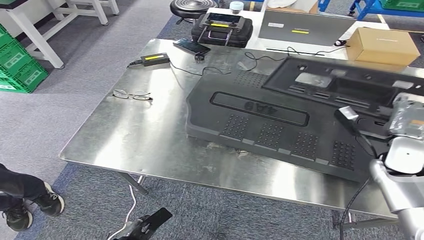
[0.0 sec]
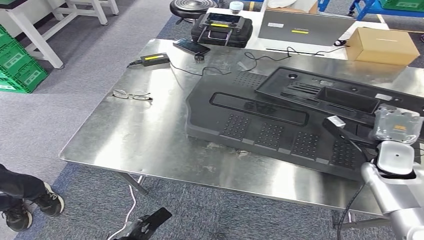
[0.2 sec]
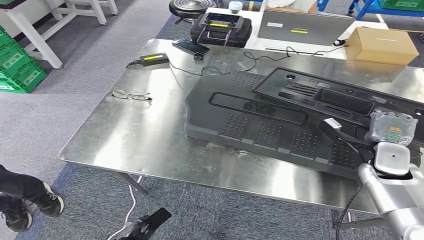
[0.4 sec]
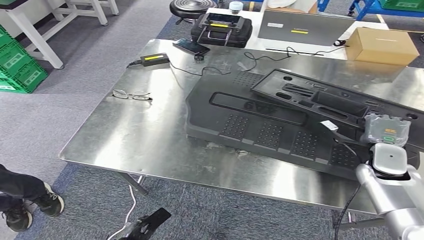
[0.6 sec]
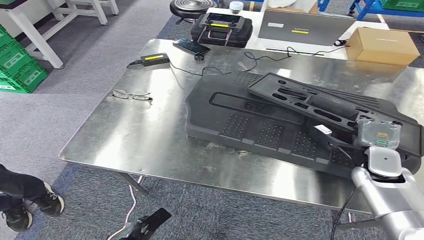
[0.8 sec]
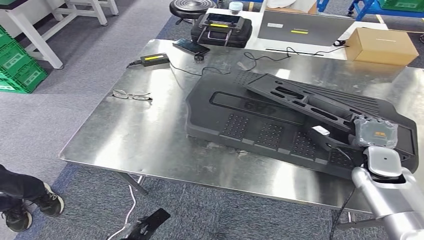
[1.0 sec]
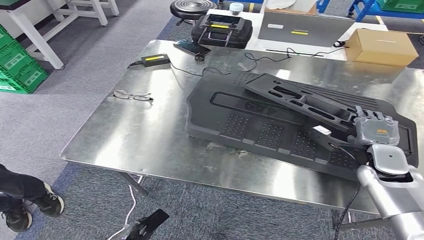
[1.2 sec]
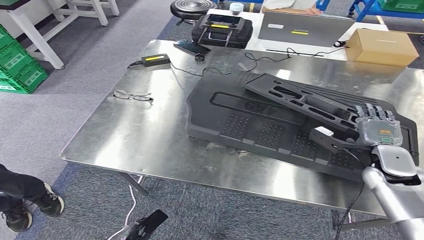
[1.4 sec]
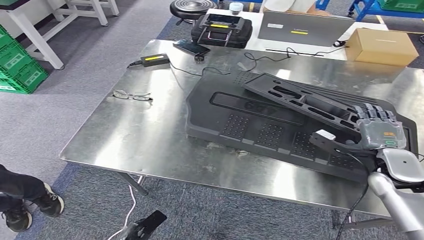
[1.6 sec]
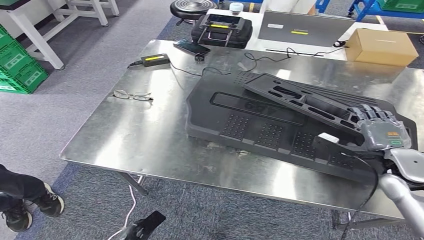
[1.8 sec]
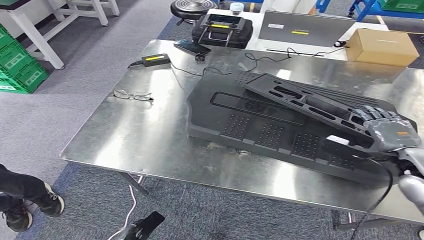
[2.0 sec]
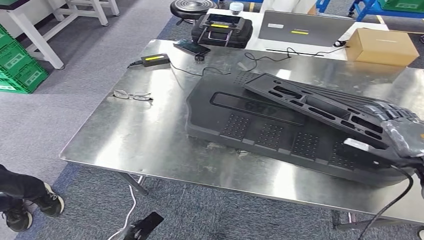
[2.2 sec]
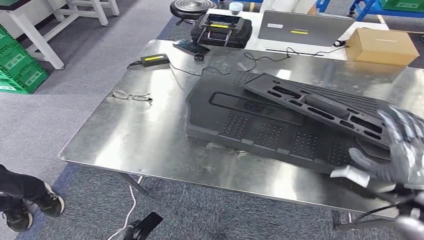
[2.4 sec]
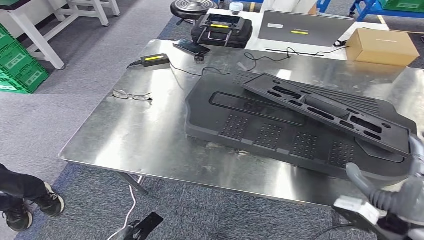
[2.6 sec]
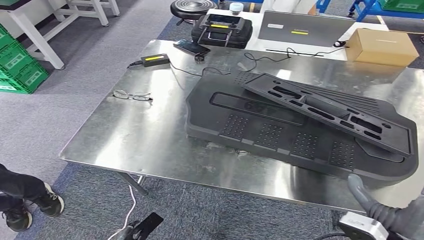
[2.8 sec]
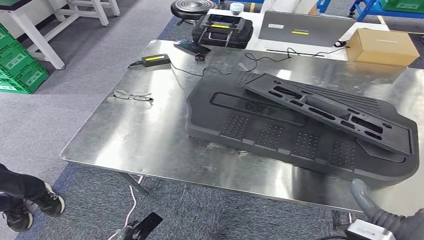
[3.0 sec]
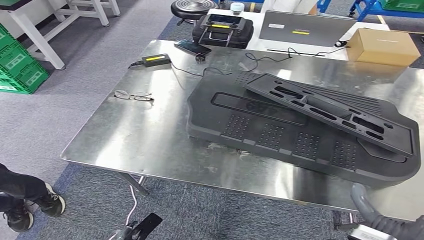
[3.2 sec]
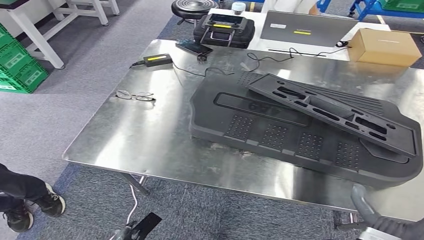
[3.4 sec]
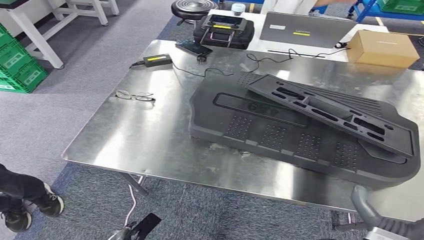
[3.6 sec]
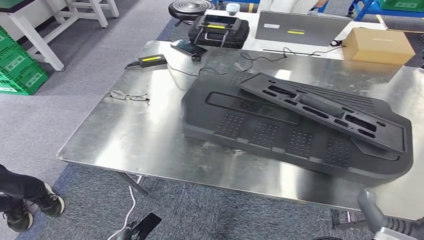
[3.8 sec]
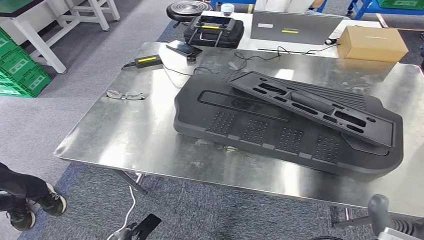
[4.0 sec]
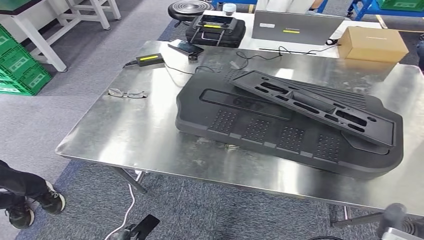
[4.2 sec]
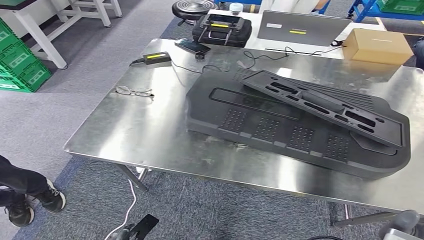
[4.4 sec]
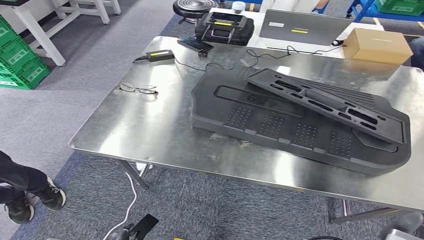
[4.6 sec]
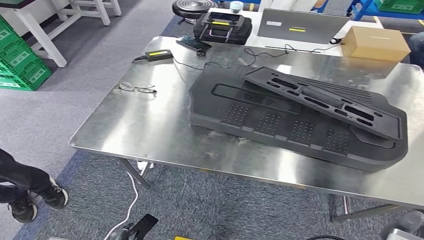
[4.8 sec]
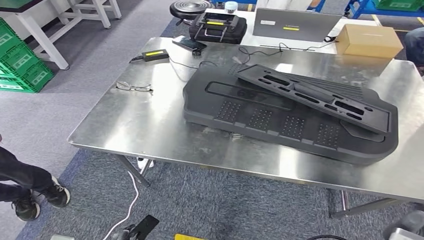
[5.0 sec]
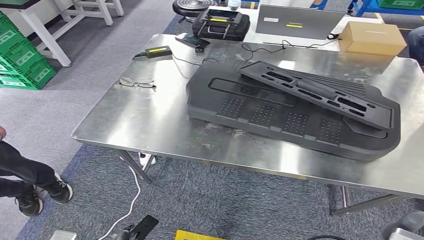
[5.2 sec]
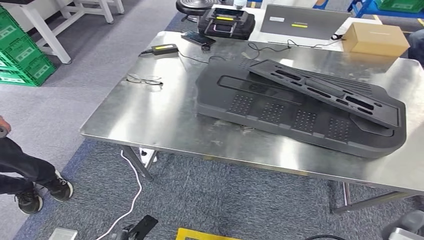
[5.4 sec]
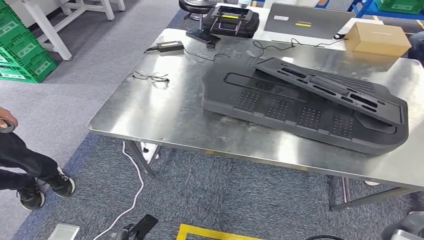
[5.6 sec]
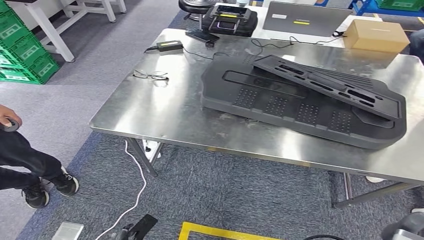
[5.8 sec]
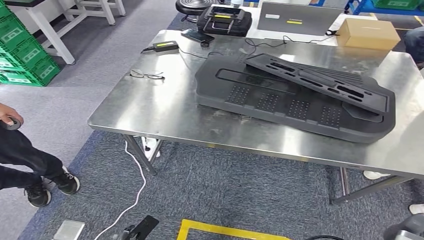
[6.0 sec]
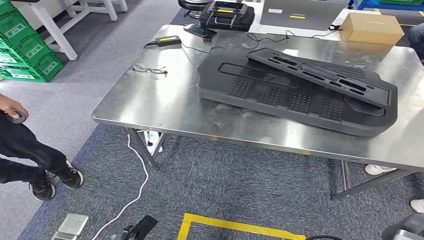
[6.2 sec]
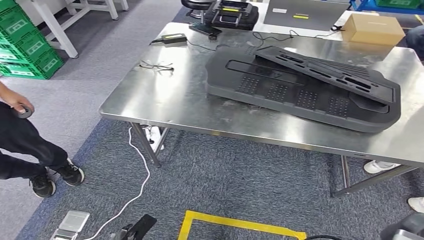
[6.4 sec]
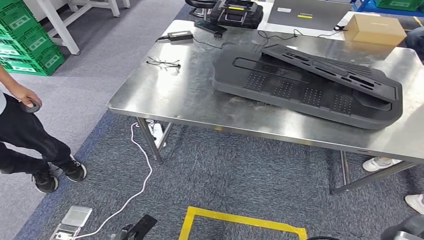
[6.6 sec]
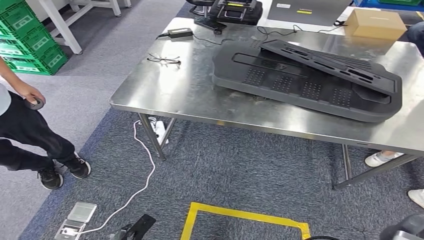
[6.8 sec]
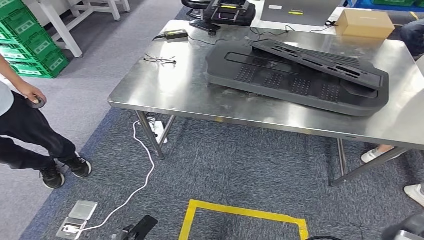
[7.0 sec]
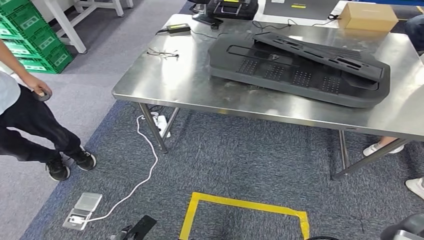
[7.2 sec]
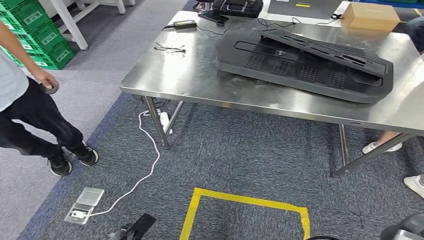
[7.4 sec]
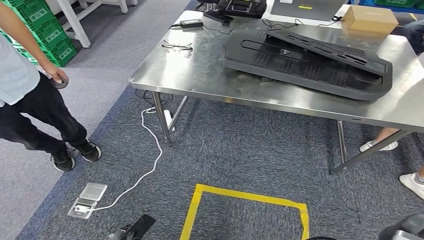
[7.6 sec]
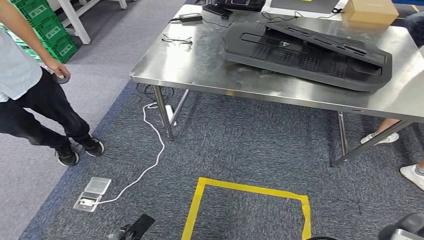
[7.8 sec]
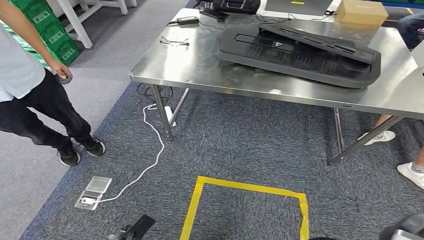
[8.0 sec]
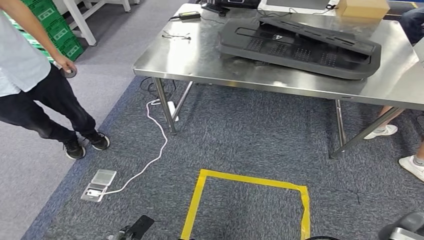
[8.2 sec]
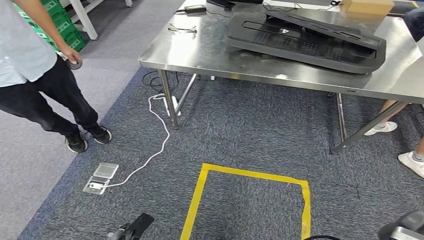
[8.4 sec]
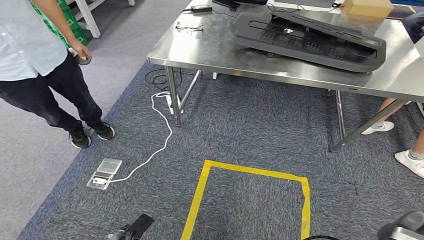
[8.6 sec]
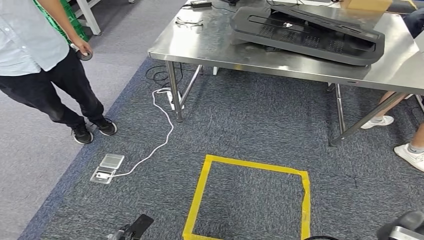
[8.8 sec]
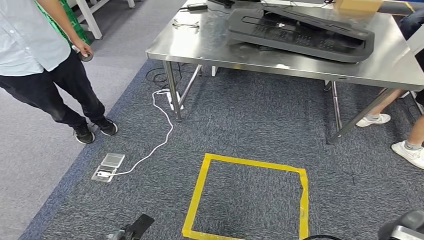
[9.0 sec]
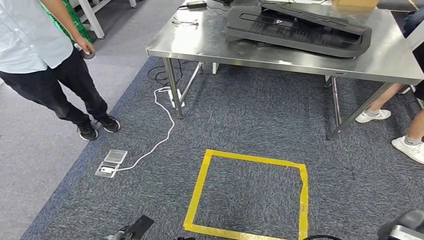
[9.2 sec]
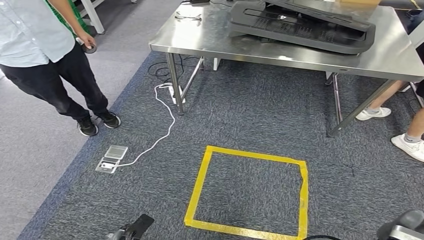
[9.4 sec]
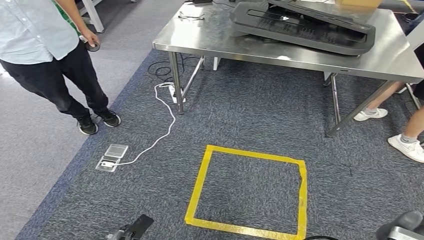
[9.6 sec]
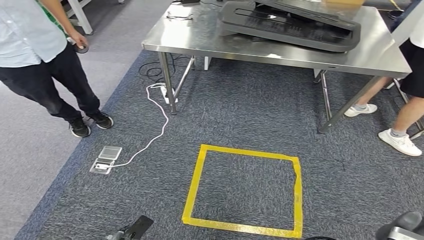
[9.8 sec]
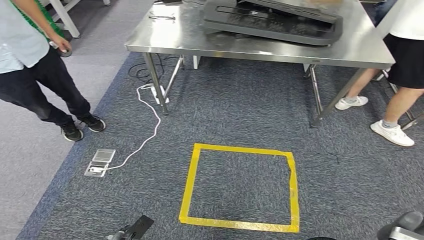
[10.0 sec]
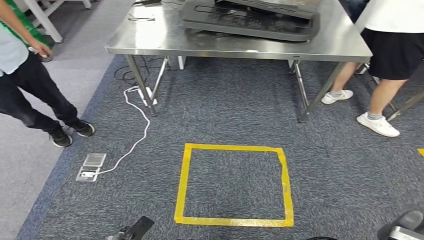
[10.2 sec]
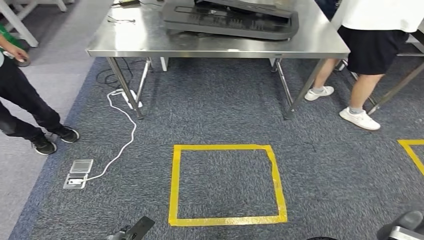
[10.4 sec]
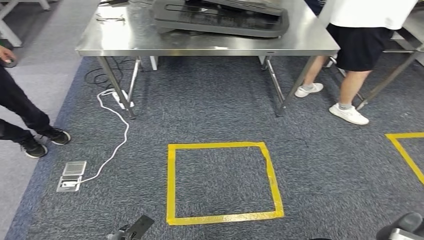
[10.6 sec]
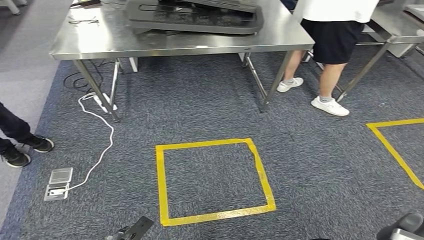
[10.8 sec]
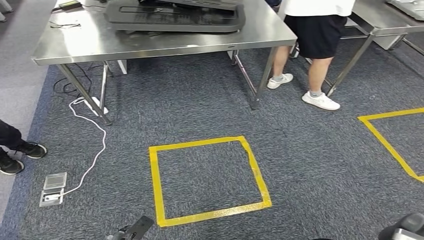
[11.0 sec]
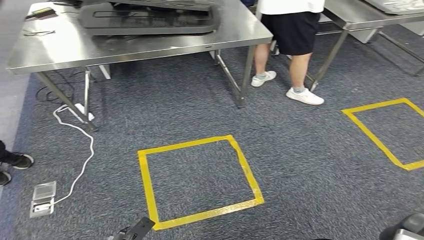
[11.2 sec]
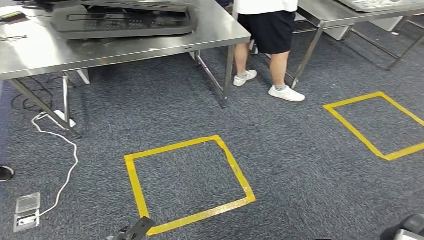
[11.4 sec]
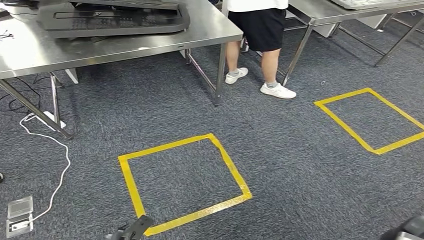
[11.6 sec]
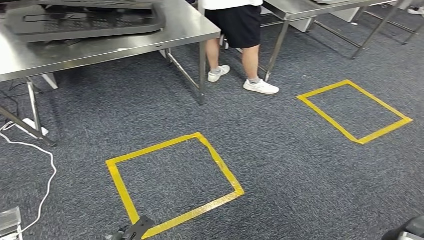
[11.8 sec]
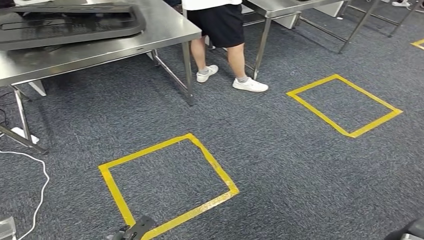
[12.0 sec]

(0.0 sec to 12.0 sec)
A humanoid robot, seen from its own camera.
Step, 0.0 sec - 2.4 sec: Insert the large parts into the corresponding slots on the workbench.
1.6 sec - 3.0 sec: The right hand goes approximately 20 cm backward.

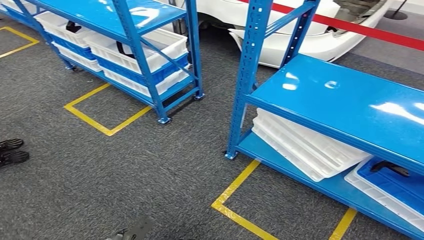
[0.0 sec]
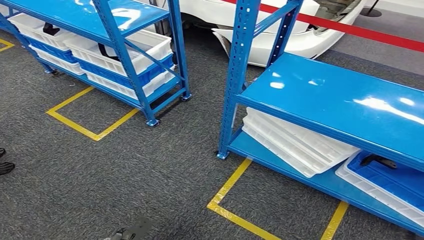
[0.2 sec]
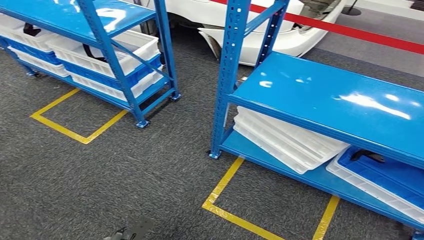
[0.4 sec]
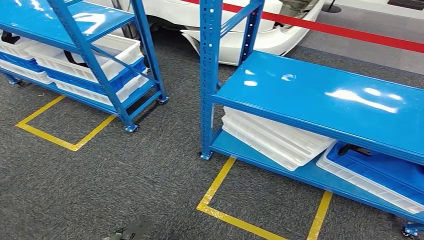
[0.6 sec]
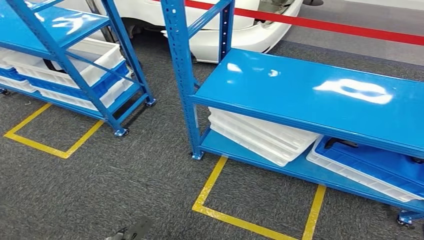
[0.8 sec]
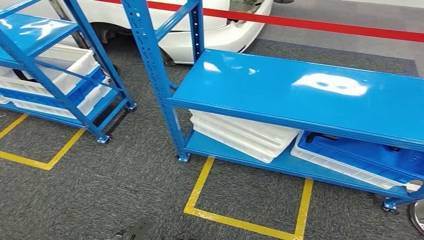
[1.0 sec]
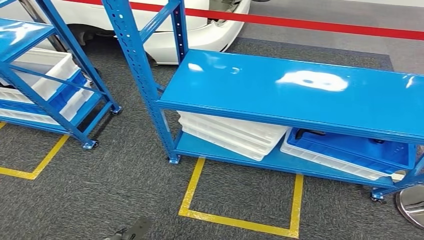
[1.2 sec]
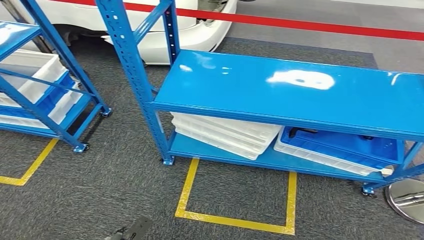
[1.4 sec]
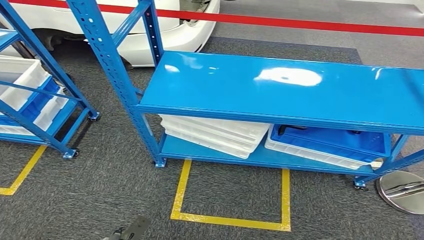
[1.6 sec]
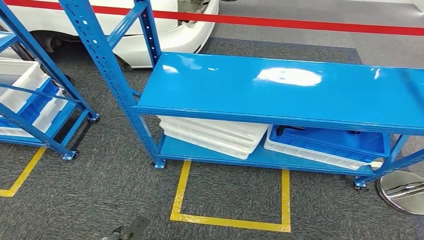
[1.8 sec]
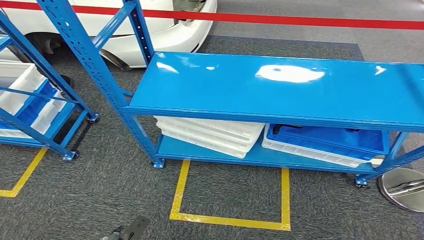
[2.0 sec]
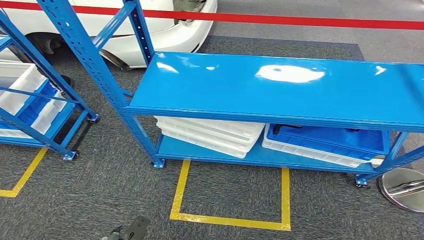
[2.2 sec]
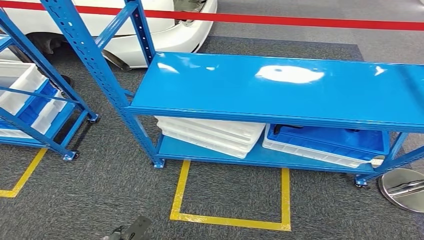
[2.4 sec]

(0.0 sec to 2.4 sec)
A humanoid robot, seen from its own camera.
Step, 0.0 sec - 2.4 sec: Return to the initial position at the shelf.
